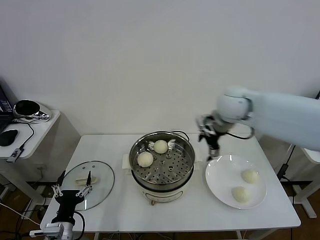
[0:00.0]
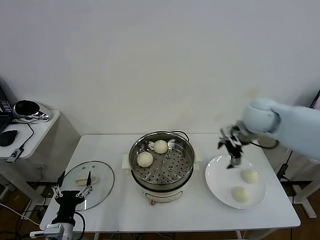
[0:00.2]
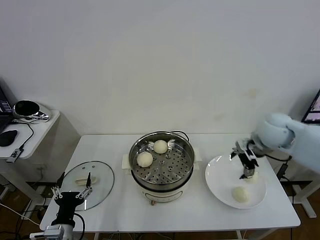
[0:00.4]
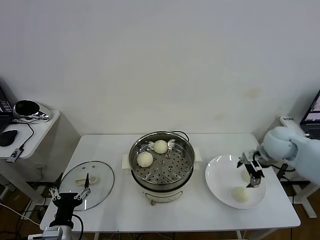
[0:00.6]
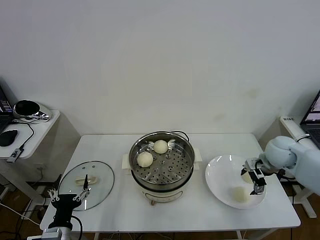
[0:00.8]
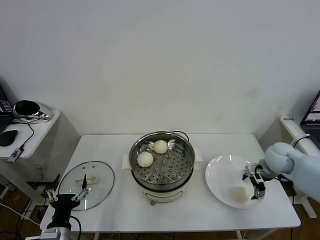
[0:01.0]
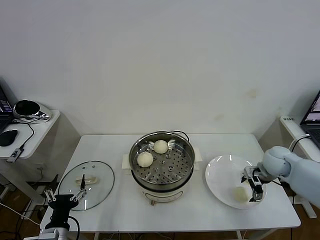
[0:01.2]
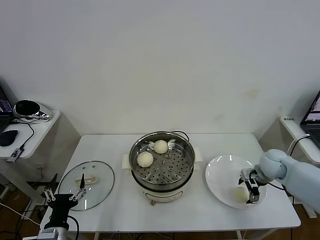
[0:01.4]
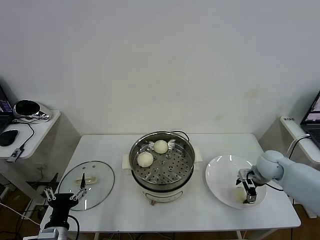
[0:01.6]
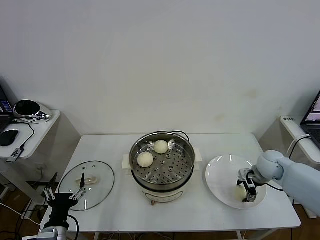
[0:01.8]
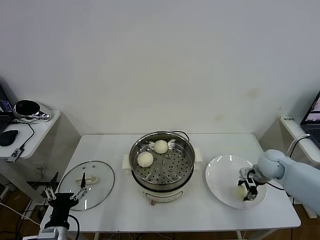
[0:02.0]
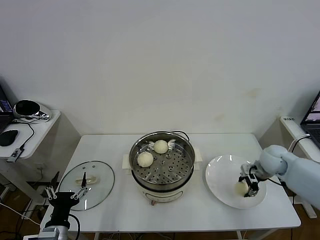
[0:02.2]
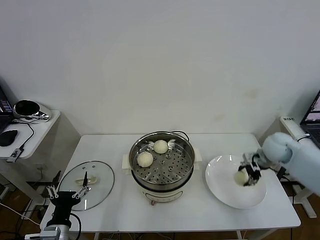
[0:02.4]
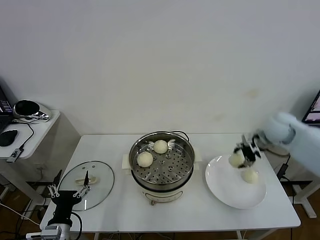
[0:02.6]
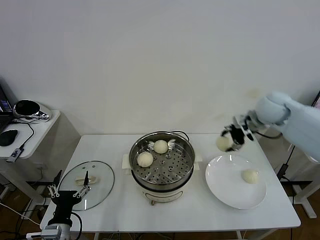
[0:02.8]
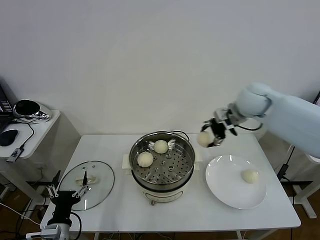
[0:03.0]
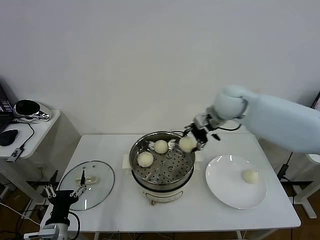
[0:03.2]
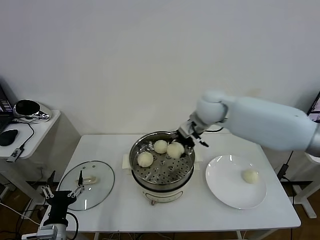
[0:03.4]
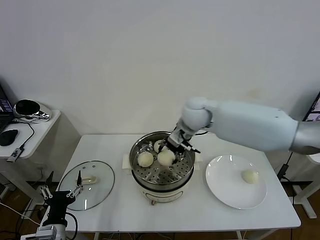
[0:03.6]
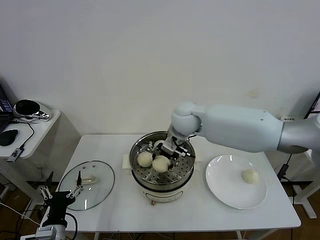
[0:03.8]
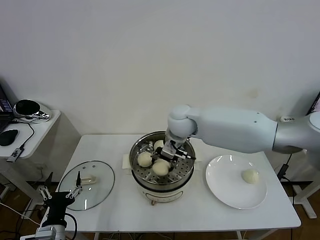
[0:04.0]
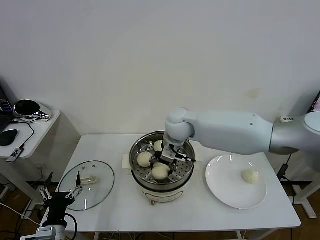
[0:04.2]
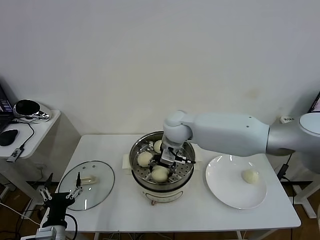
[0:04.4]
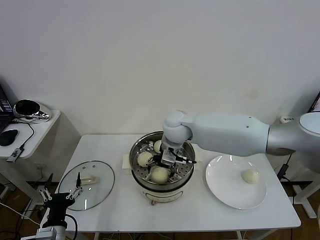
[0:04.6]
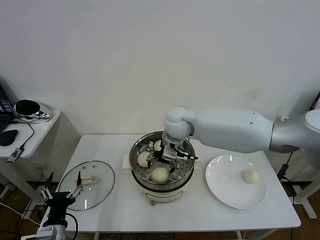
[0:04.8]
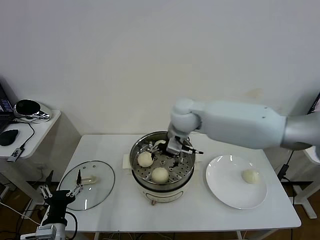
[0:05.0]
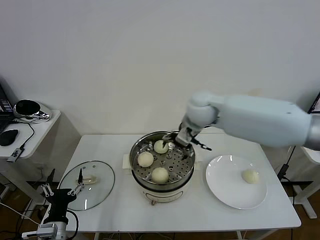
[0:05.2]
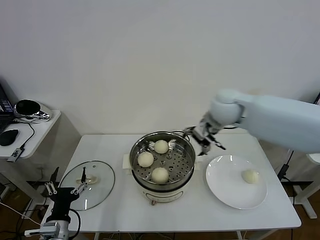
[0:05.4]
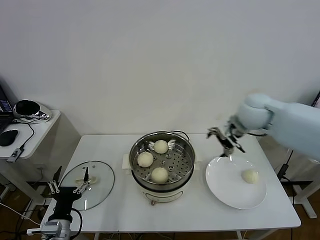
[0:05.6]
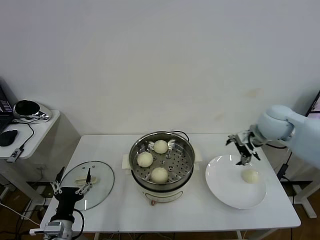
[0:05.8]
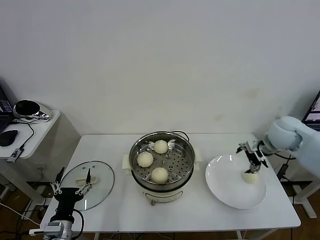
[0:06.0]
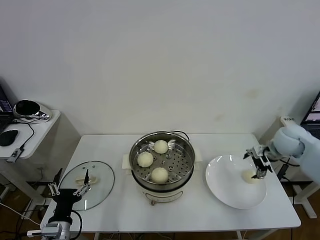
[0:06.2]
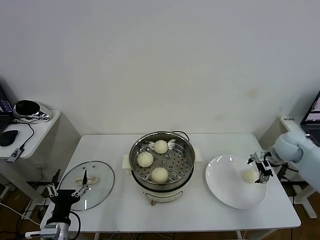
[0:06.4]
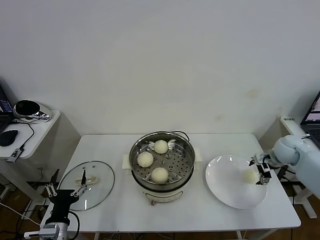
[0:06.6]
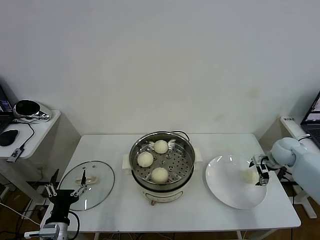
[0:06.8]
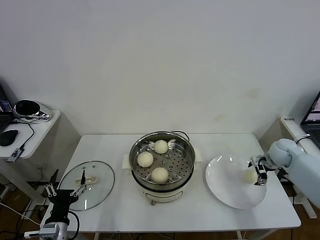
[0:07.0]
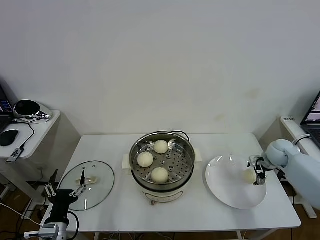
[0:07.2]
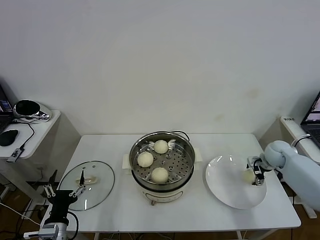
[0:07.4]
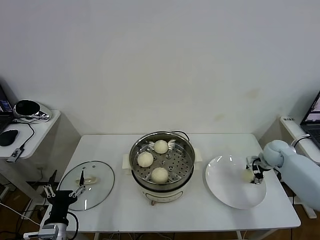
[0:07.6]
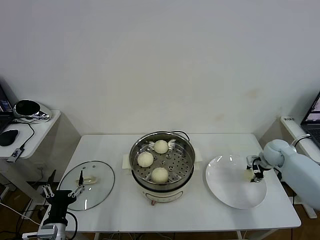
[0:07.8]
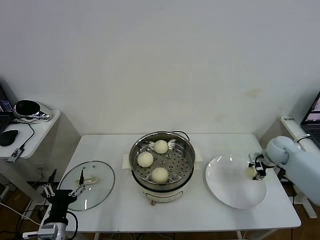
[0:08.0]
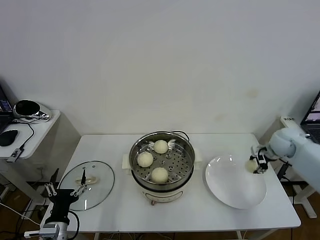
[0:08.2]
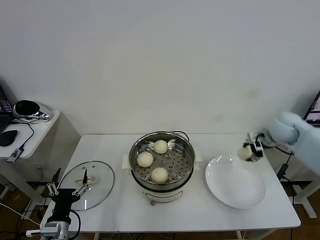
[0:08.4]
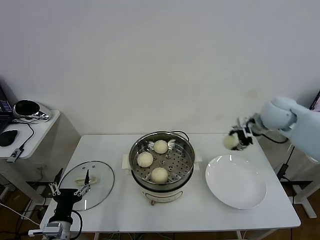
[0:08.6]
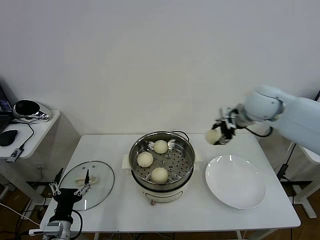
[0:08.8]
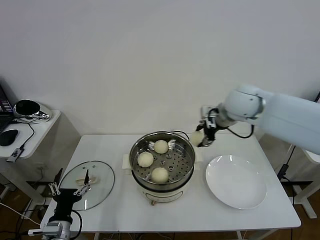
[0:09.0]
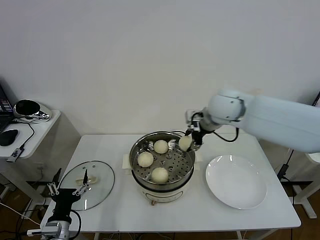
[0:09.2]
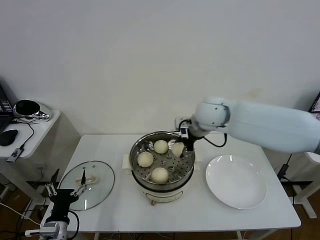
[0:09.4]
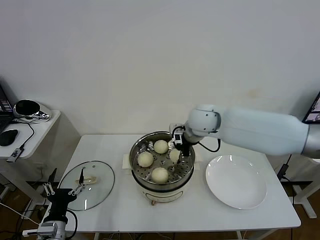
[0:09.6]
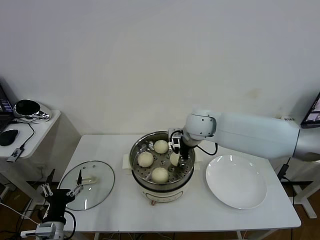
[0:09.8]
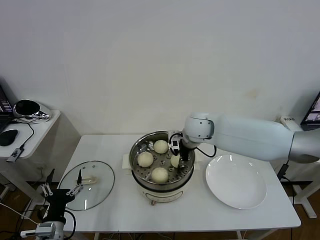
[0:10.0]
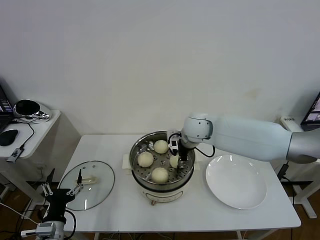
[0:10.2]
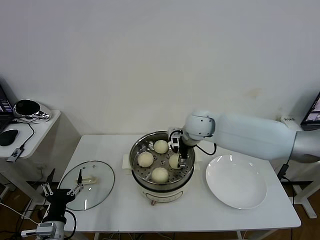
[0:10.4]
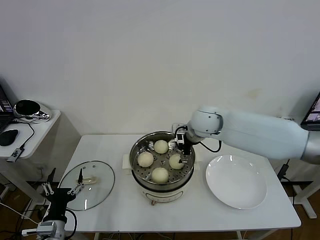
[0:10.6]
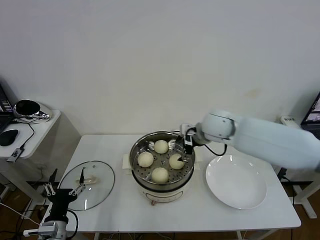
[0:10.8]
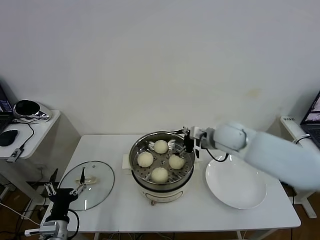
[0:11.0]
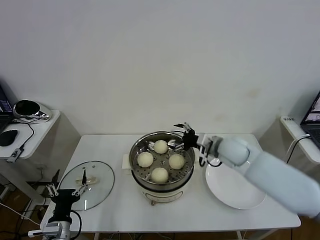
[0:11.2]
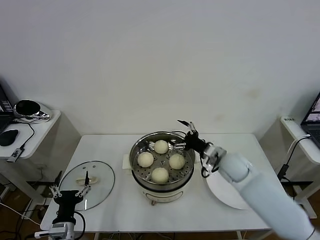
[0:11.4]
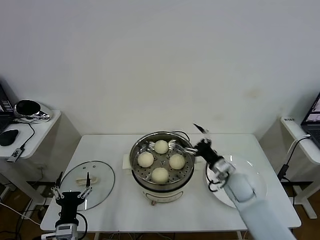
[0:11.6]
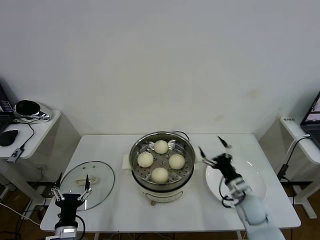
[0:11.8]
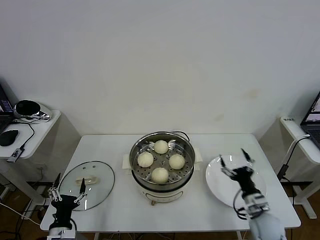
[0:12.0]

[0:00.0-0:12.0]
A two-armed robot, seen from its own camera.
Task of the whole recording: take steamed baozi put them in steamer then cover it.
Step, 0:00.0 to 0:02.0: Grasp the baozi in the plate with right gripper.
Step, 0:02.2 to 0:04.8: Place the baozi on the steamer with right gripper.
Step, 0:05.0 to 0:07.8: Grasp the baozi in the plate with right gripper.
Step, 0:08.0 to 0:10.4: Place the baozi on the steamer with right gripper.
0:00.0 to 0:01.6: The right gripper moves downward and to the right, some 25 cm.
0:01.6 to 0:03.0: The right gripper travels upward and to the left by some 25 cm, and closes up.
0:03.0 to 0:04.4: The right gripper moves to the left and downward, about 20 cm.
0:04.4 to 0:06.0: The right gripper heads to the right, covering about 35 cm, and opens.
0:06.0 to 0:07.6: The right gripper moves downward, roughly 15 cm, and closes up.
0:07.6 to 0:09.0: The right gripper moves upward and to the left, about 35 cm, and closes up.
0:09.0 to 0:10.4: The right gripper travels to the left and downward by roughly 15 cm, and opens.
0:10.4 to 0:12.0: The right gripper travels backward, downward and to the right by about 40 cm.

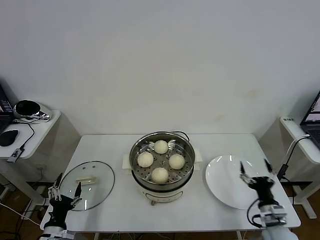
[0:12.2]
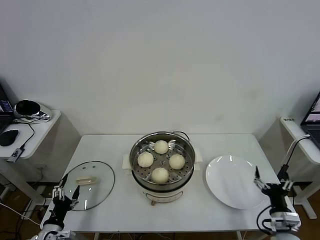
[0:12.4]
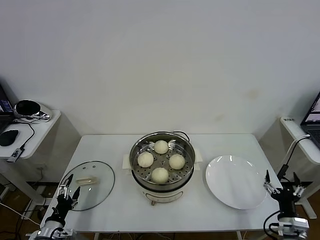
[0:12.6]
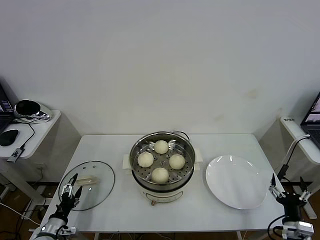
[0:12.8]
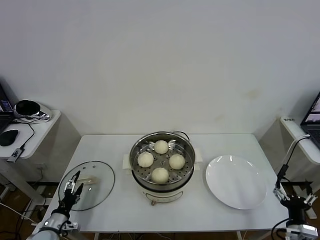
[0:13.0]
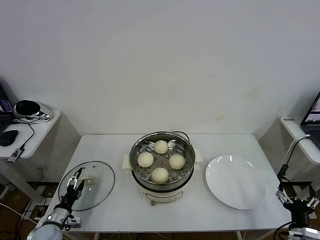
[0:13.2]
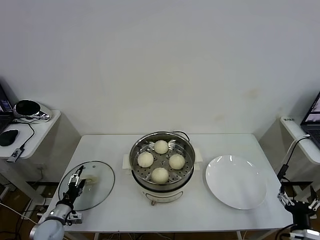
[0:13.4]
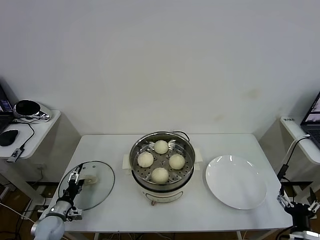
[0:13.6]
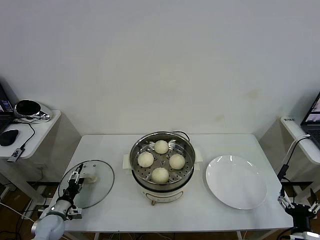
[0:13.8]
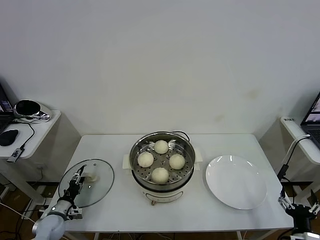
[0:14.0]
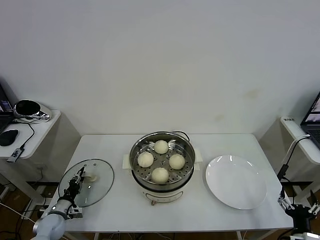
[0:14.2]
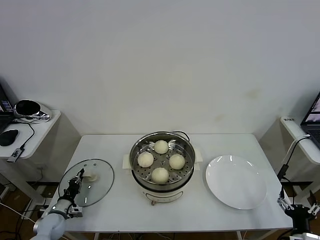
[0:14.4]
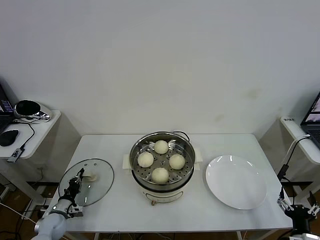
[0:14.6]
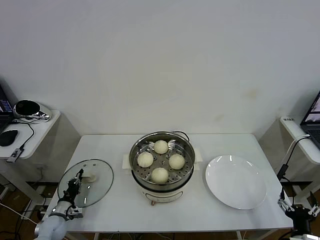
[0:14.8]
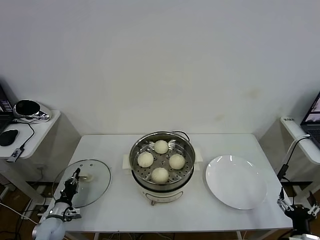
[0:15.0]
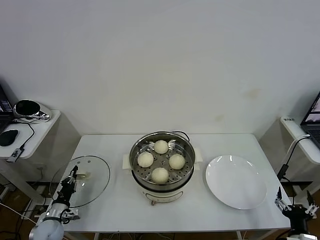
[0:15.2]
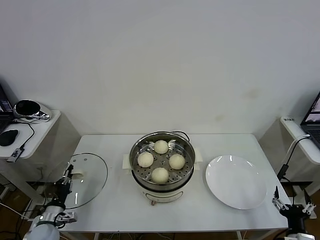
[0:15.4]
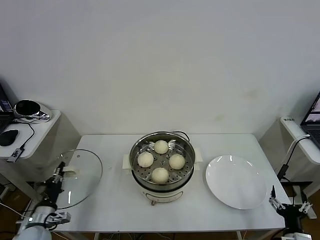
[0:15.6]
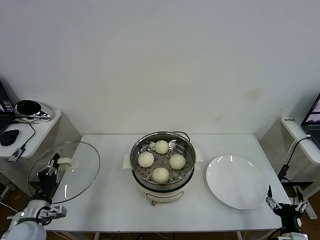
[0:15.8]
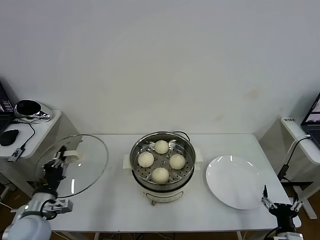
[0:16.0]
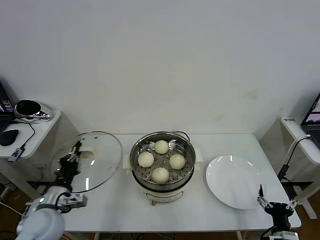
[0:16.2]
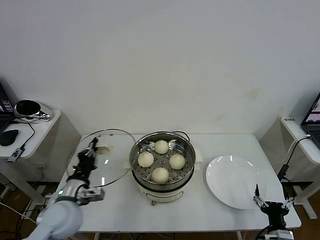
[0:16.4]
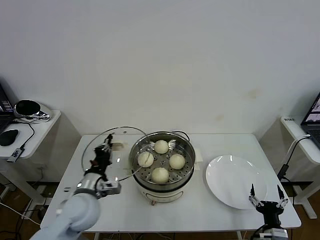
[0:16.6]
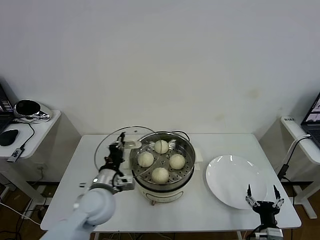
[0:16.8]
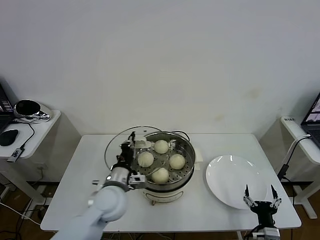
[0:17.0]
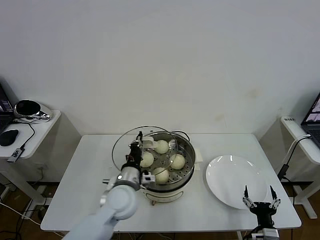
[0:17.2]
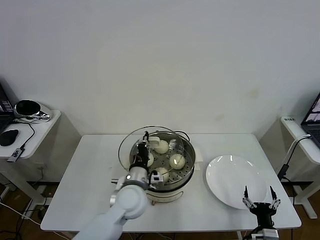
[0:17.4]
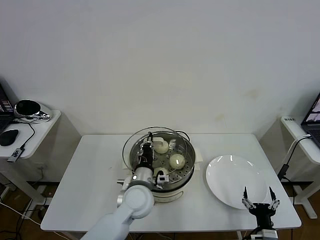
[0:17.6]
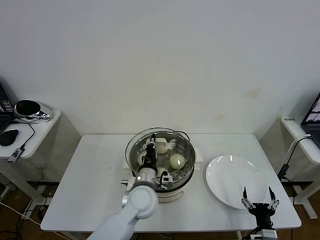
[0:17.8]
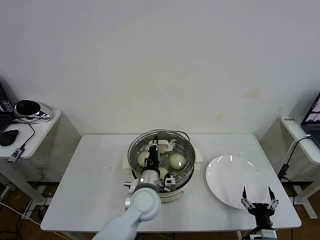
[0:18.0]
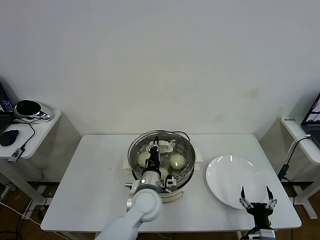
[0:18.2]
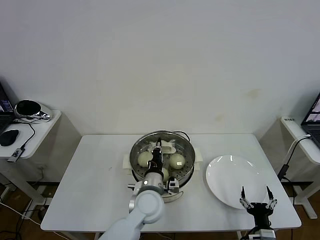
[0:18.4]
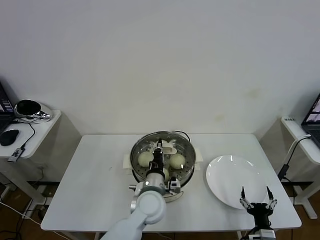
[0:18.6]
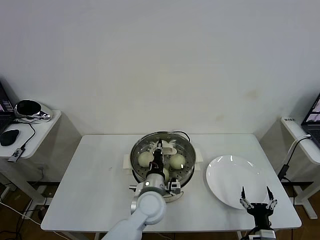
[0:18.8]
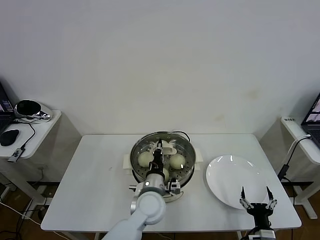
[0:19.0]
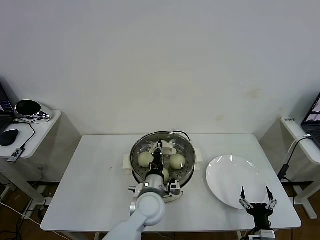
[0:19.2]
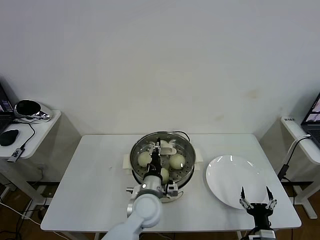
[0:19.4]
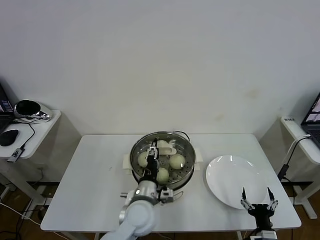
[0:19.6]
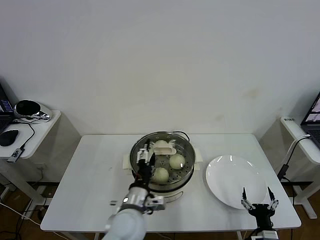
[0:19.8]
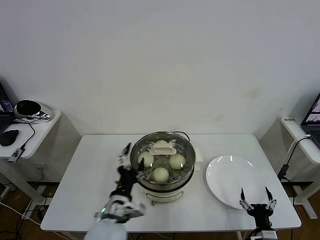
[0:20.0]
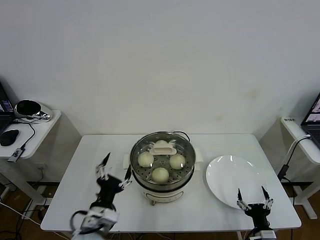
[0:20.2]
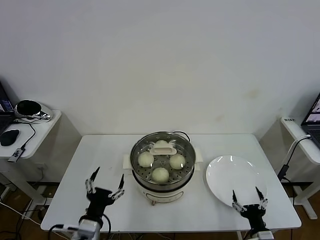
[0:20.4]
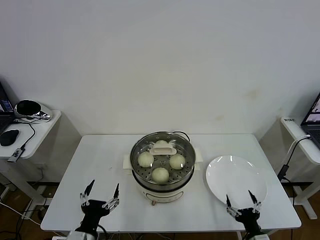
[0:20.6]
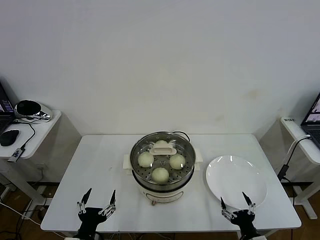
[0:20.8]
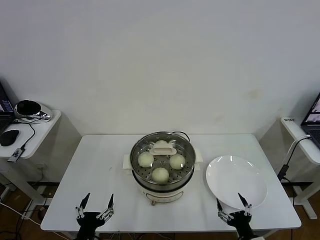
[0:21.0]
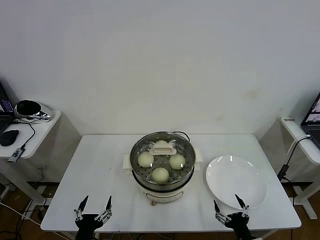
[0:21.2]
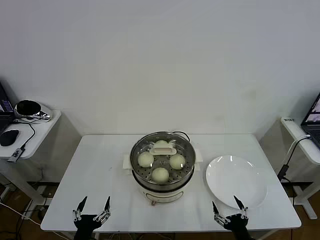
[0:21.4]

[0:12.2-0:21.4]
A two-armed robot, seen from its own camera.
Task of the whole recording: take steamed baozi put them in steamer then cover it.
Step, 0:12.2 to 0:14.6: Grasp the pot lid with left gripper.
Step, 0:14.8 to 0:19.6: Place the pot lid on the steamer with left gripper.
0:12.2 to 0:13.8: The right gripper is displaced backward by about 10 cm; the left gripper moves forward, to the left and downward, roughly 15 cm.
0:13.8 to 0:15.2: The left gripper closes up.
0:15.2 to 0:16.8: The right gripper travels to the left by about 5 cm; the left gripper is displaced to the right and upward by approximately 30 cm.
0:16.8 to 0:18.4: The left gripper shifts about 15 cm to the right.
0:18.4 to 0:19.8: The left gripper travels backward by roughly 5 cm, and opens up.
0:19.8 to 0:21.4: The right gripper moves some 5 cm. Meanwhile the left gripper moves to the left and backward, approximately 25 cm.
